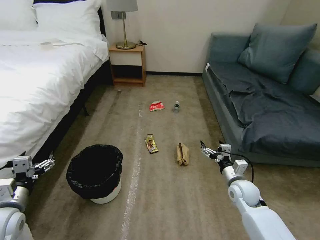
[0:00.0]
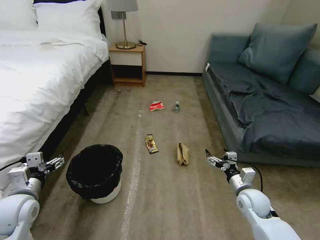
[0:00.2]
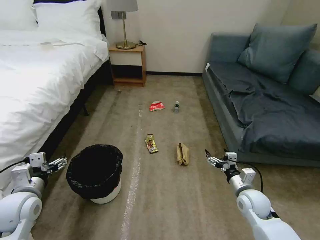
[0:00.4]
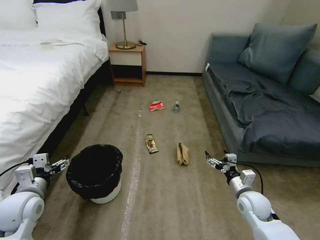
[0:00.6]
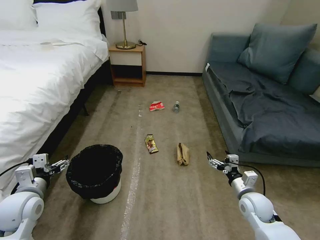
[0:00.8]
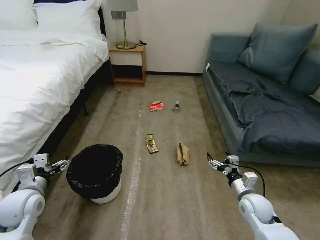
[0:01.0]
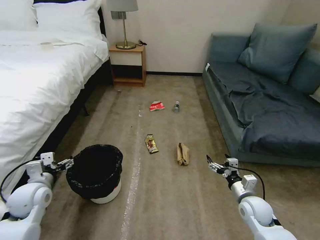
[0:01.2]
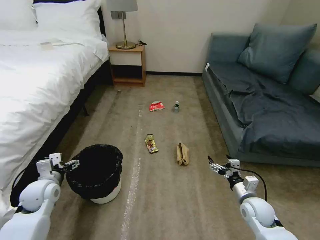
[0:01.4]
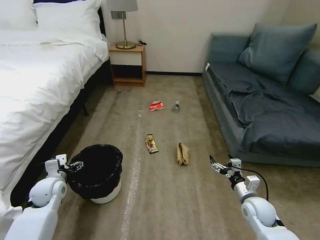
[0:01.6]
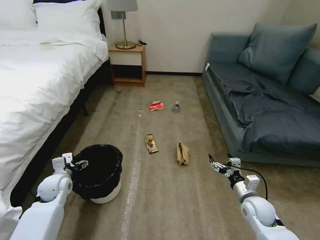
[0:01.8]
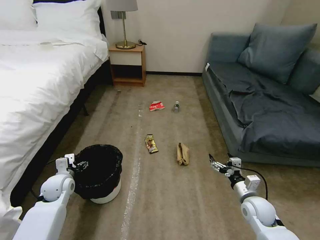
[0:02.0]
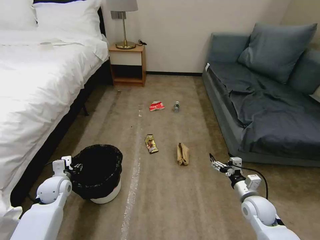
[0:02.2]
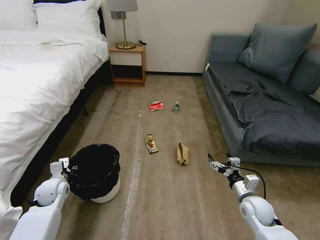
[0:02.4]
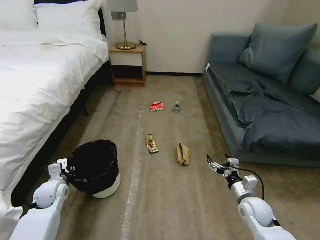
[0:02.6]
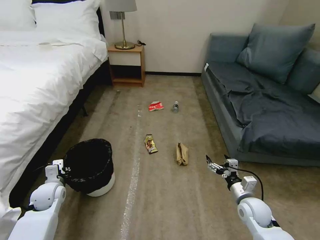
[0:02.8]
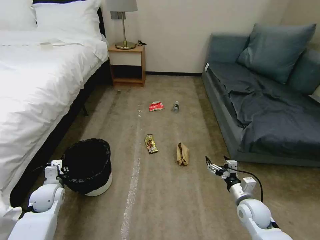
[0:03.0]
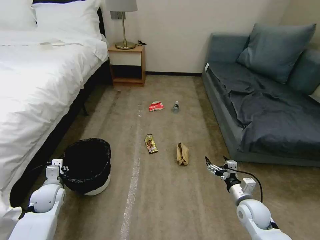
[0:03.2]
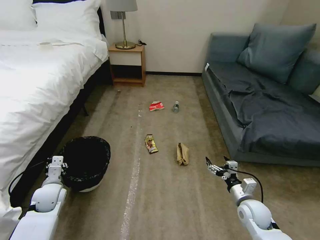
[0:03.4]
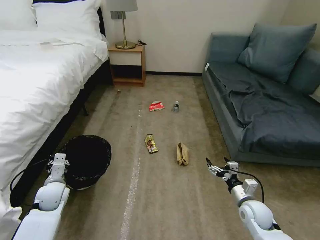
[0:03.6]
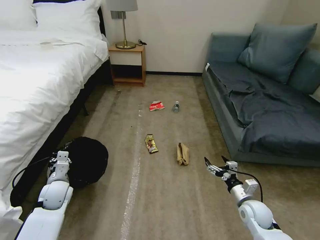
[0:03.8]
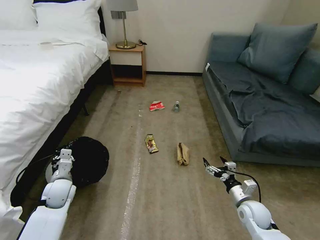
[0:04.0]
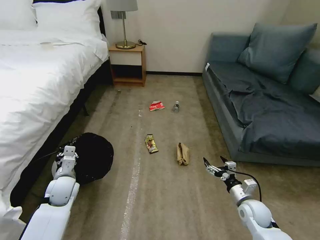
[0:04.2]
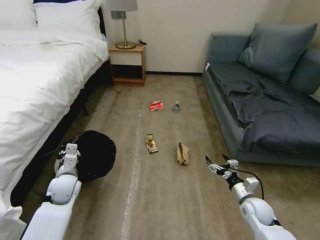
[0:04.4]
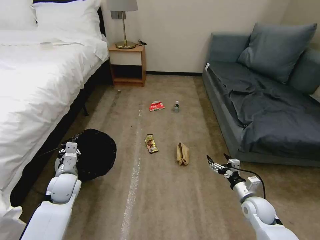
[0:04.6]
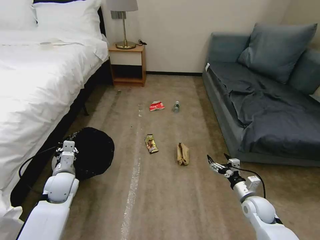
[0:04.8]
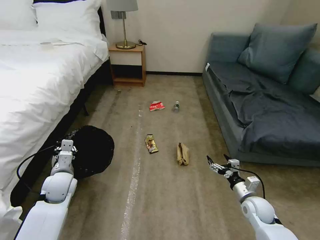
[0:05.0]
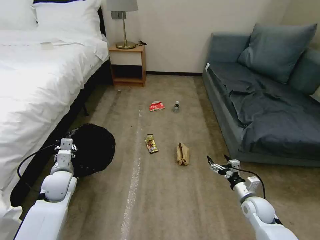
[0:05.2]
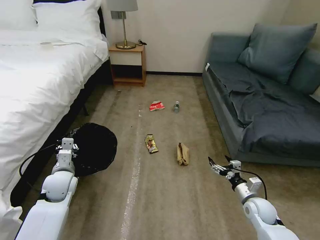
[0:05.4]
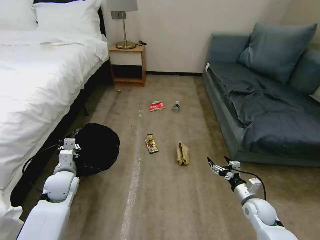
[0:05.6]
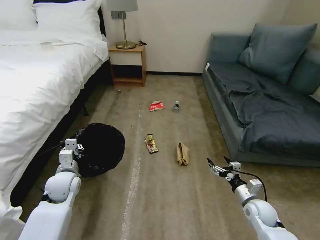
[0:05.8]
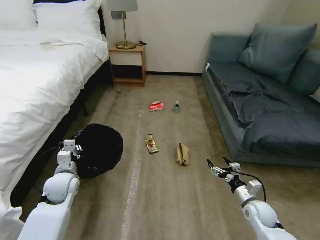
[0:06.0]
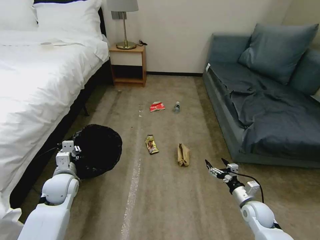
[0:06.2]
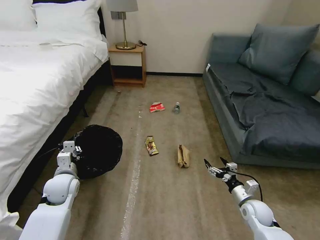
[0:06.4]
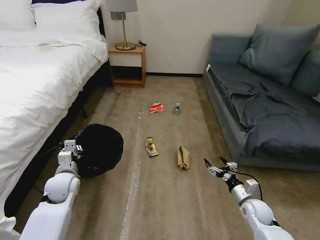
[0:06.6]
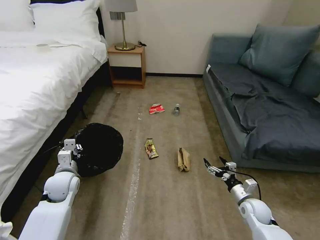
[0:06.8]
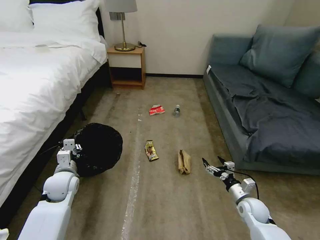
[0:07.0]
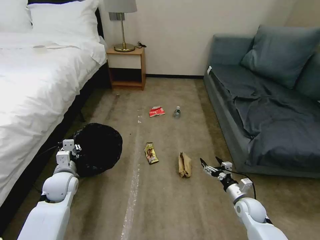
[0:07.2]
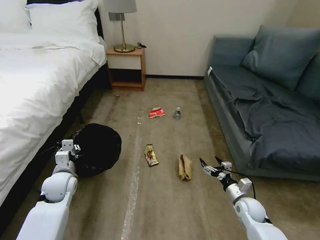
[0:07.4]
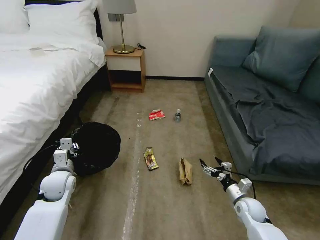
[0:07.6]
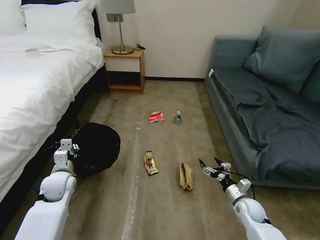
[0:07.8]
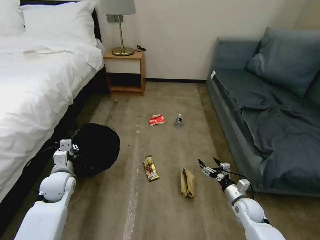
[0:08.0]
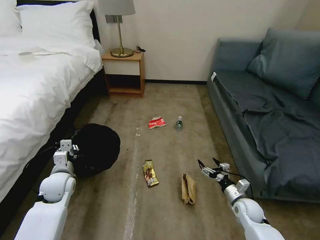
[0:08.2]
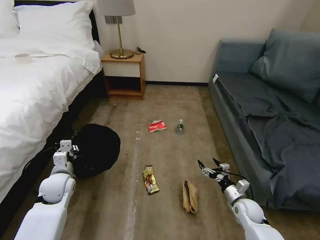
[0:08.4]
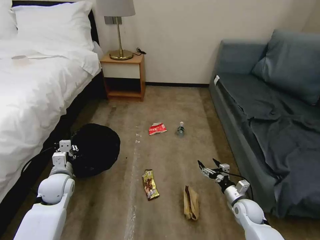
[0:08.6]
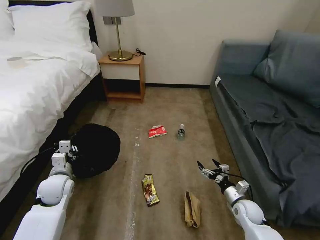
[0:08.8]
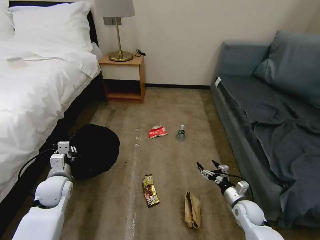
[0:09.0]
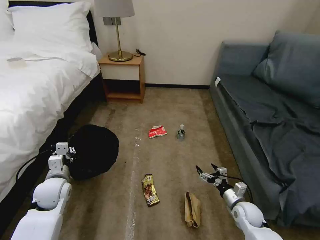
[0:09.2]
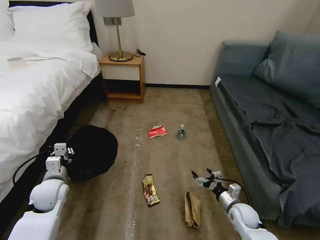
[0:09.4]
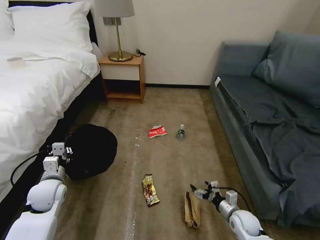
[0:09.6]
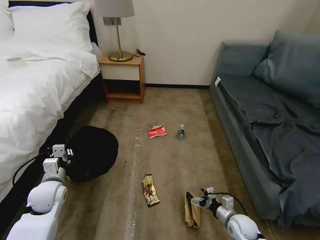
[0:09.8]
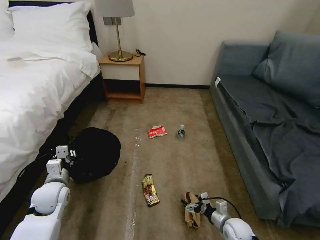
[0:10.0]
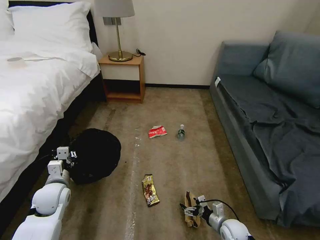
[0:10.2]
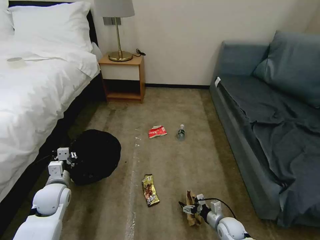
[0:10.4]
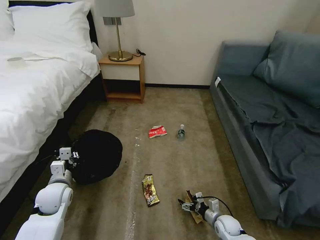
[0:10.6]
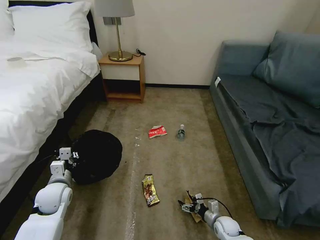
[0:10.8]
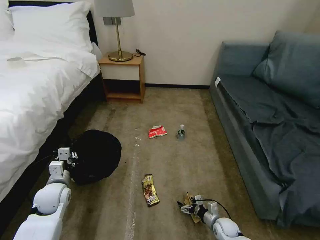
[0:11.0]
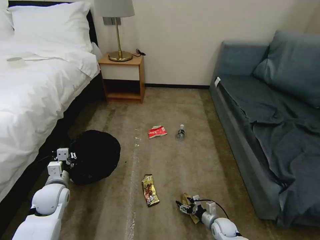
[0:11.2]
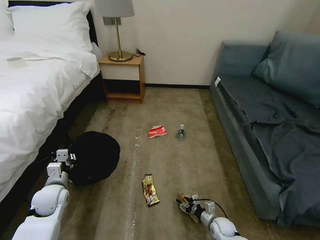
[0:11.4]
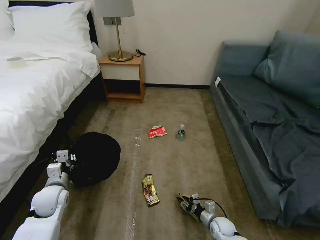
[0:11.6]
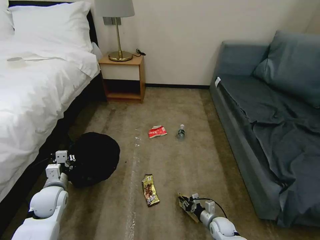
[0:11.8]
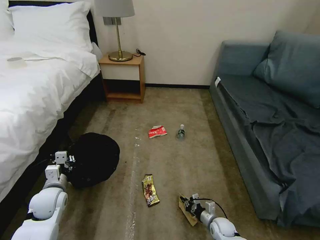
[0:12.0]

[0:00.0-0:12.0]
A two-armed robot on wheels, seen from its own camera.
Task of the whole recording: Pick up the trash bin, then pick up the garbage on the floor and place it into the trash bin.
0:01.6 to 0:03.0: The left gripper closes its fingers.
0:03.0 to 0:04.4: The left gripper moves to the right, some 5 cm.
0:04.4 to 0:06.0: There are only small adjustments of the grippers.
0:09.0 to 0:10.4: The right gripper moves downward and to the left, approximately 10 cm.
0:10.4 to 0:12.0: The right gripper closes up.

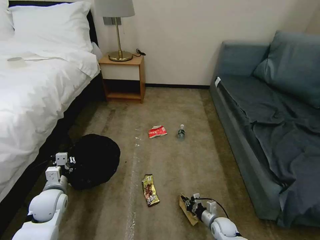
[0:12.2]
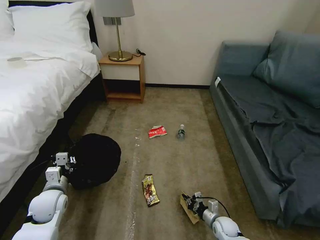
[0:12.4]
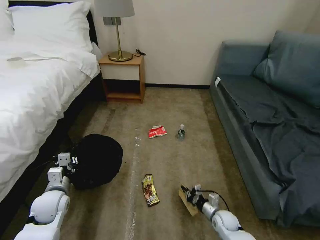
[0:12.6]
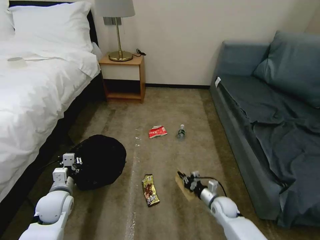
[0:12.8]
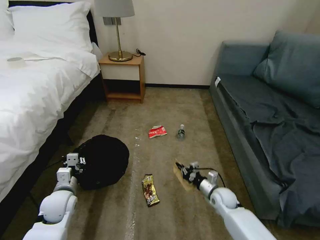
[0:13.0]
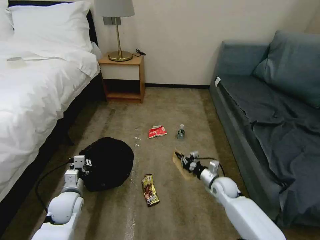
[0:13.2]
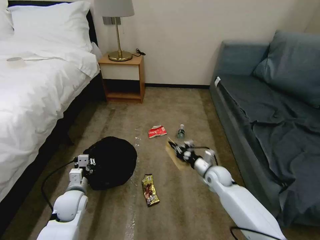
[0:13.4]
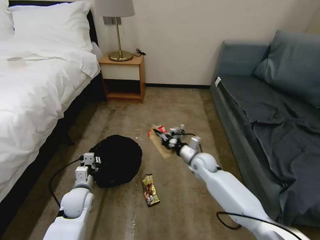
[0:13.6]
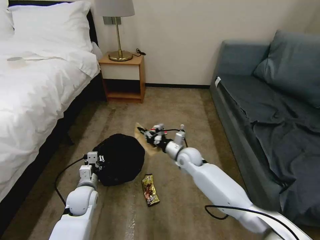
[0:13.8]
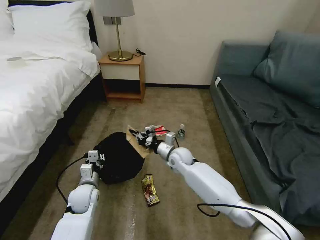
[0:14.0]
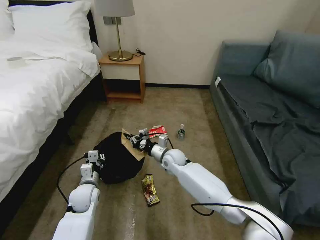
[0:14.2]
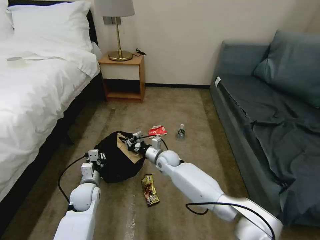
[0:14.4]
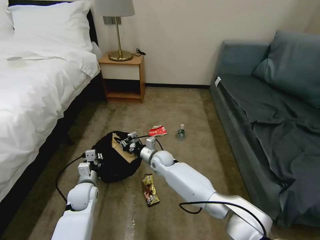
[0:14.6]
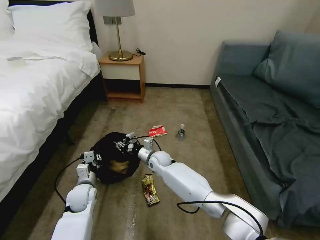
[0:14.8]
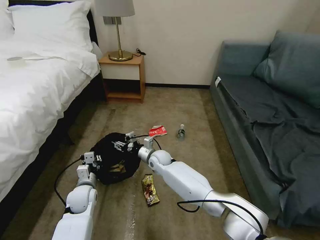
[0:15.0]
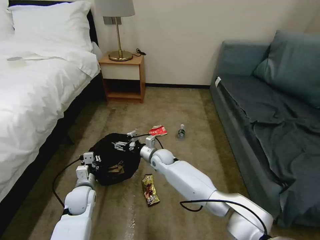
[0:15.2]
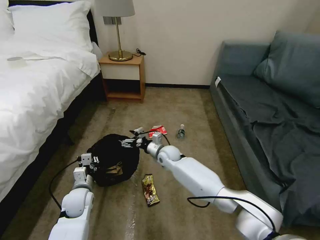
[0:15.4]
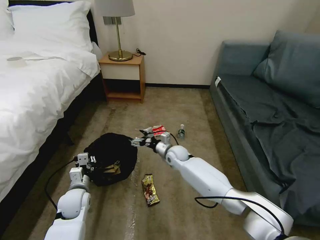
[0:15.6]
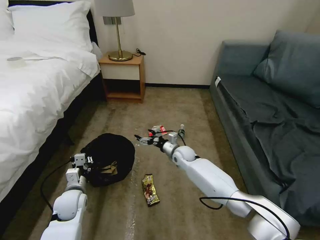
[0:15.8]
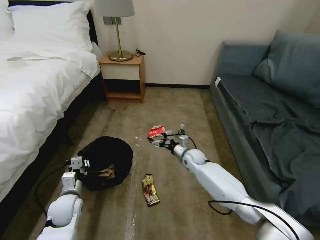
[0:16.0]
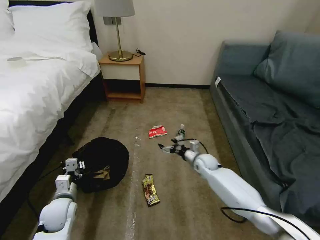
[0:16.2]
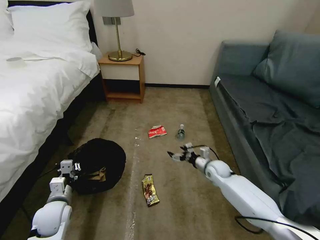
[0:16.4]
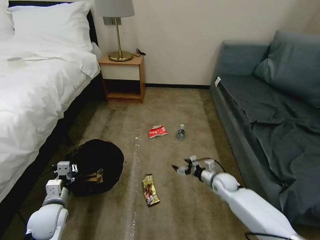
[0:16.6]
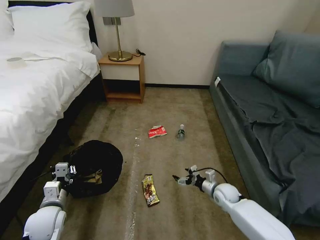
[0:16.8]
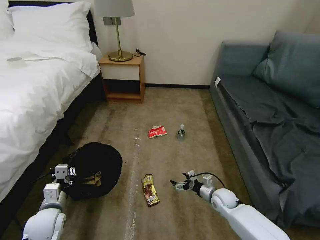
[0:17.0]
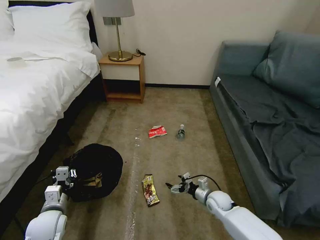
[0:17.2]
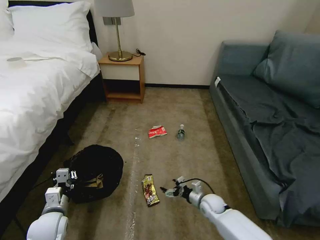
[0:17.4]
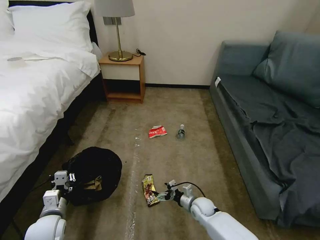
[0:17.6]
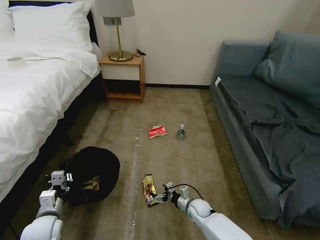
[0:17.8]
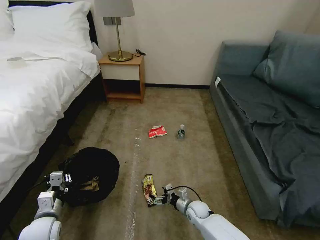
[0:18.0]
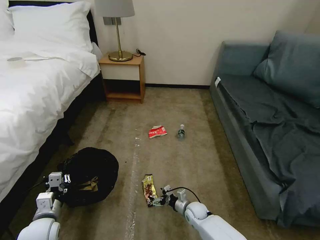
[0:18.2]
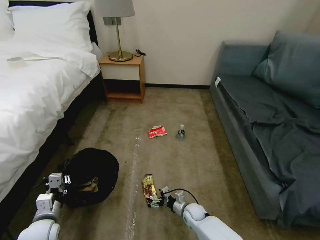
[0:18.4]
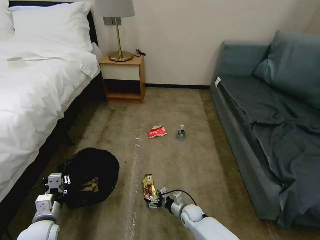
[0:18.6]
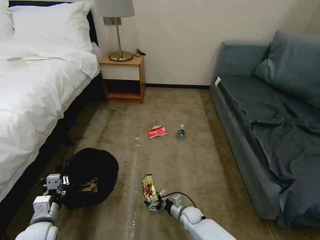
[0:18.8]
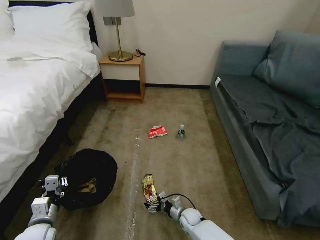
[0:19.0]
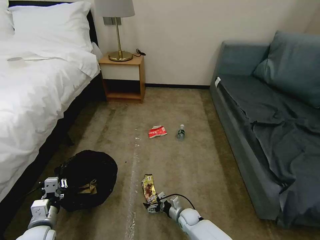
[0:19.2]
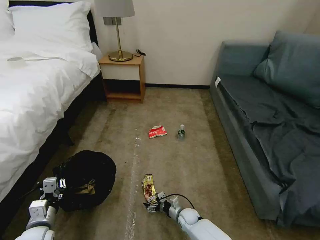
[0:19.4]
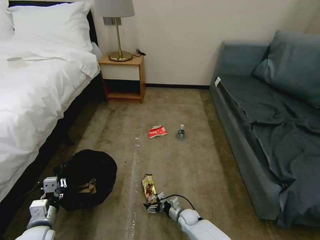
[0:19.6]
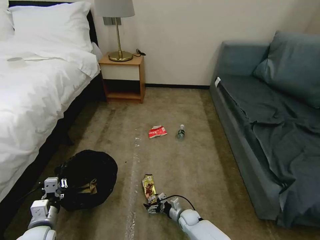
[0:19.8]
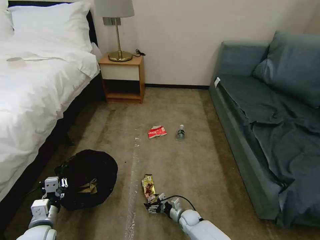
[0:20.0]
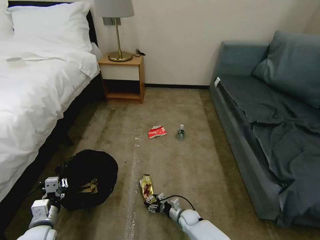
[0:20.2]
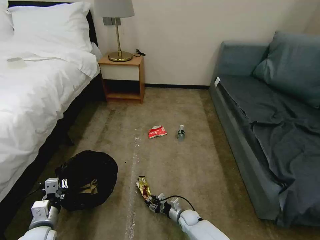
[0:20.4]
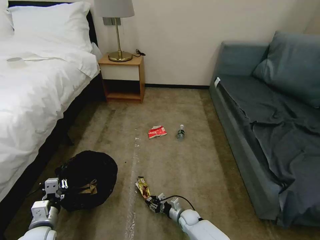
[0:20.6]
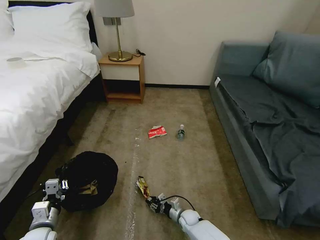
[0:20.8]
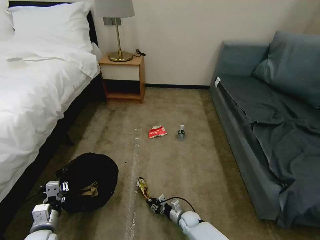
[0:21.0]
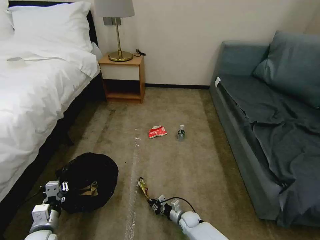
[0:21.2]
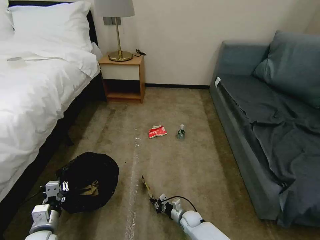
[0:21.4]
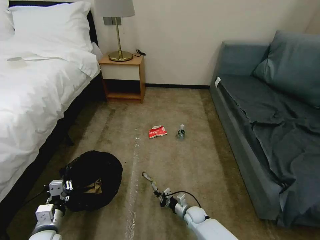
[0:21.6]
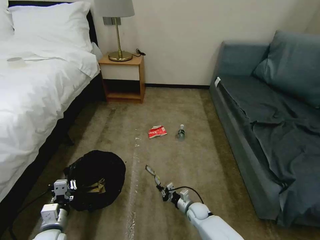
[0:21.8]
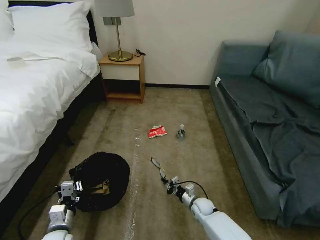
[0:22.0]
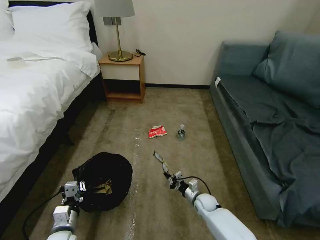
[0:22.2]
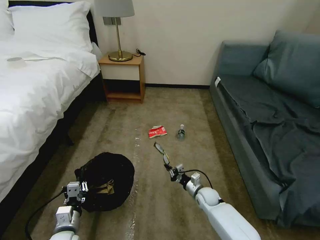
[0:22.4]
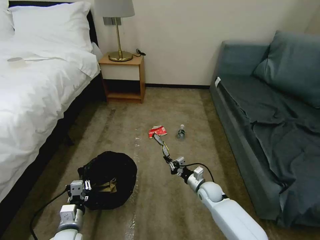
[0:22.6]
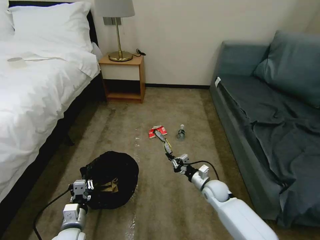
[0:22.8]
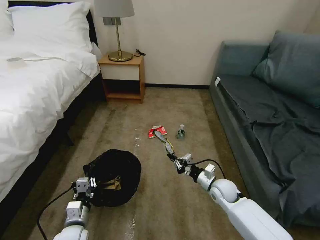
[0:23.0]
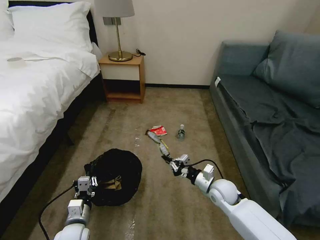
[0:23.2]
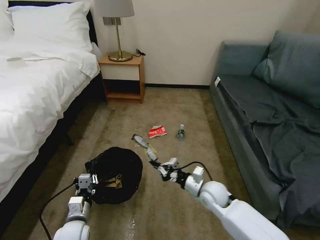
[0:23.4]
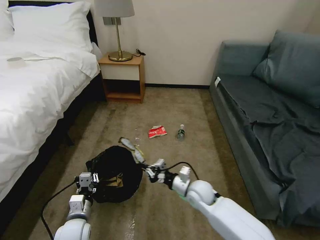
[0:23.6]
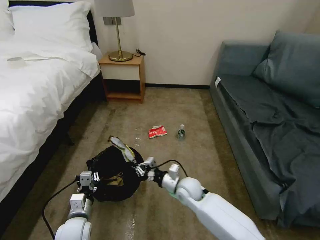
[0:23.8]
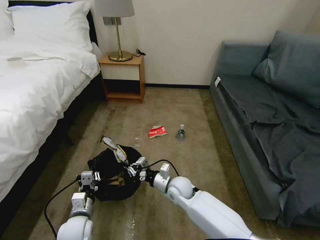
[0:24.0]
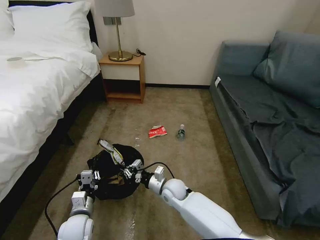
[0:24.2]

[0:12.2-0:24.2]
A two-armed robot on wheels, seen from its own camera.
Task of the whole recording: Pick up the trash bin, then pick up the garbage on the floor and place it into the trash bin.
0:12.2 to 0:13.8: The left gripper shifts some 10 cm to the right, while the right gripper is displaced upward, forward and to the left by approximately 35 cm.
0:13.8 to 0:15.2: The right gripper is displaced to the left by about 10 cm, and opens its fingers.
0:15.2 to 0:16.6: The left gripper moves backward and to the left, approximately 10 cm. The right gripper heads to the right, covering about 30 cm.
0:16.6 to 0:18.2: The right gripper moves to the left, downward and backward, some 20 cm.
0:18.2 to 0:19.8: The right gripper heads downward, covering some 5 cm.
0:19.8 to 0:21.2: The right gripper closes up.
0:21.2 to 0:22.6: The left gripper shifts approximately 5 cm to the right. Meanwhile the right gripper moves upward, forward and to the right, approximately 20 cm.
0:22.6 to 0:24.2: The right gripper shifts some 15 cm to the left and upward.
